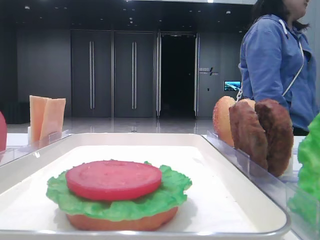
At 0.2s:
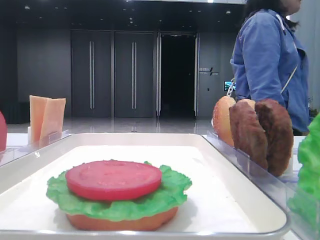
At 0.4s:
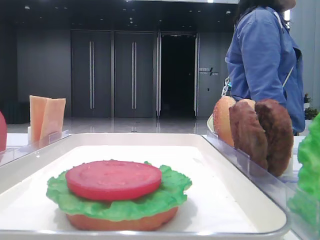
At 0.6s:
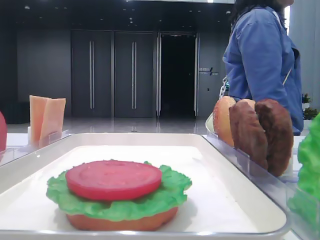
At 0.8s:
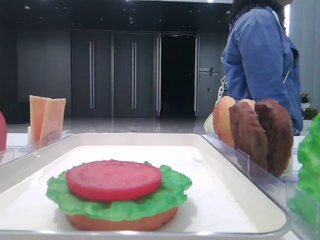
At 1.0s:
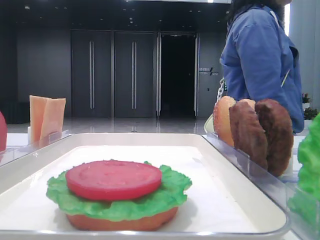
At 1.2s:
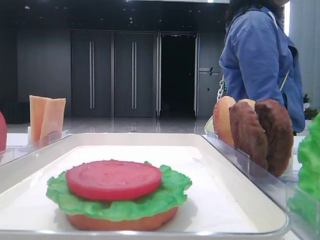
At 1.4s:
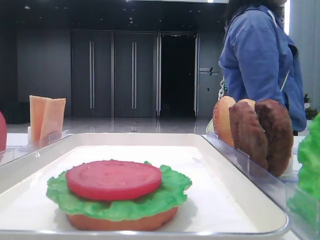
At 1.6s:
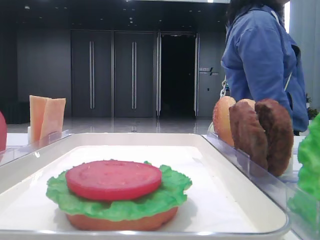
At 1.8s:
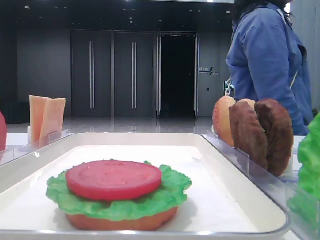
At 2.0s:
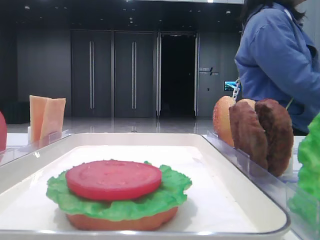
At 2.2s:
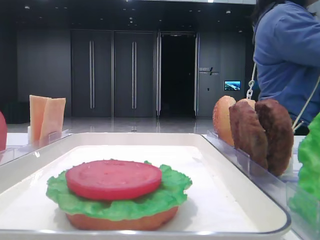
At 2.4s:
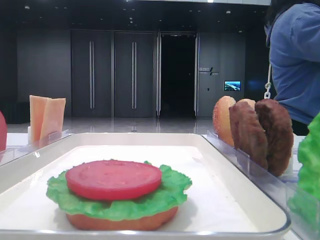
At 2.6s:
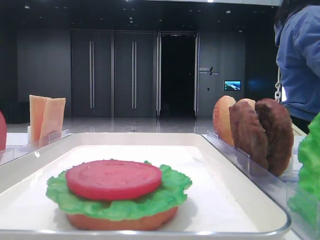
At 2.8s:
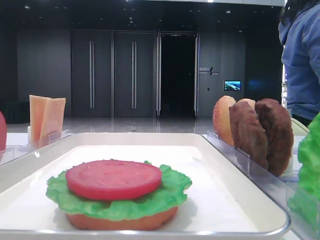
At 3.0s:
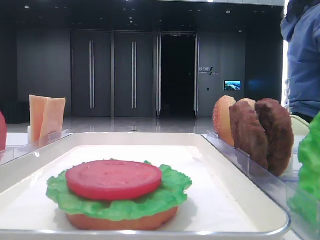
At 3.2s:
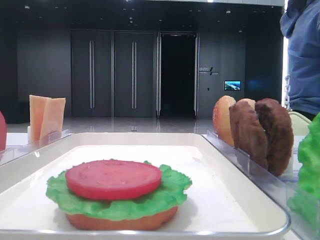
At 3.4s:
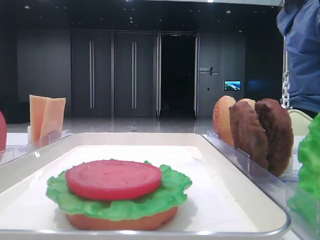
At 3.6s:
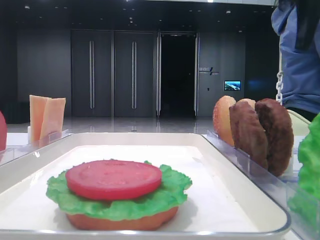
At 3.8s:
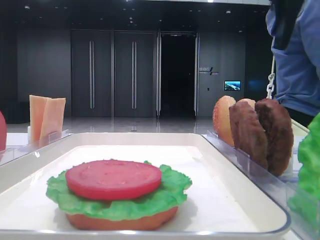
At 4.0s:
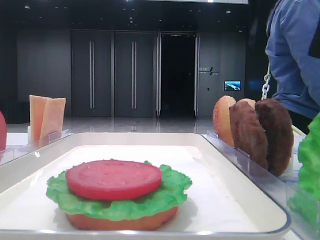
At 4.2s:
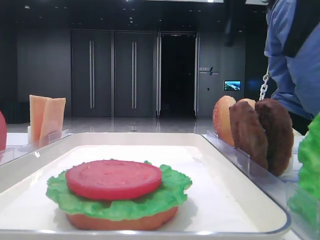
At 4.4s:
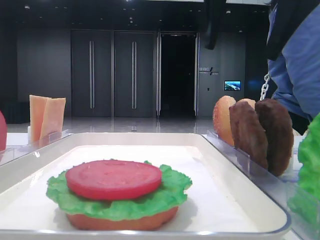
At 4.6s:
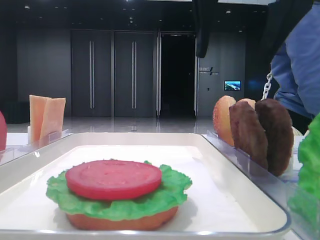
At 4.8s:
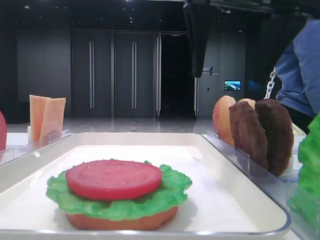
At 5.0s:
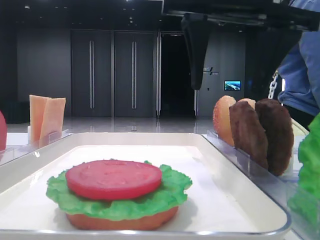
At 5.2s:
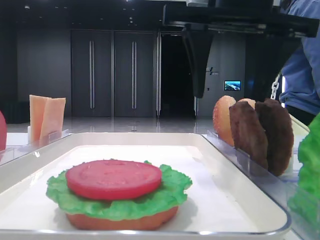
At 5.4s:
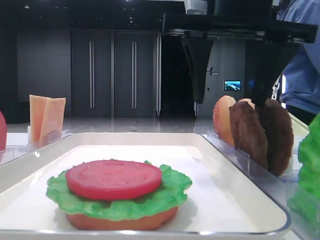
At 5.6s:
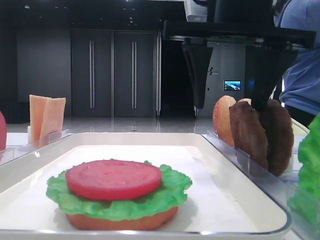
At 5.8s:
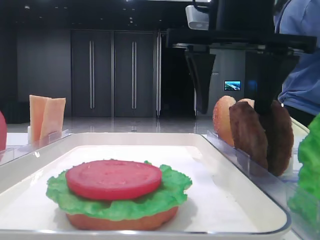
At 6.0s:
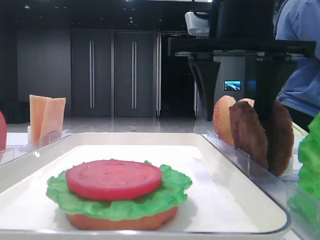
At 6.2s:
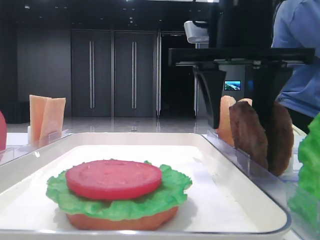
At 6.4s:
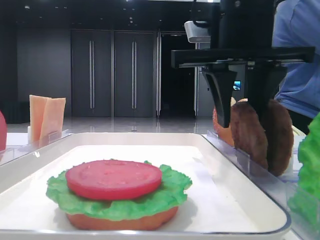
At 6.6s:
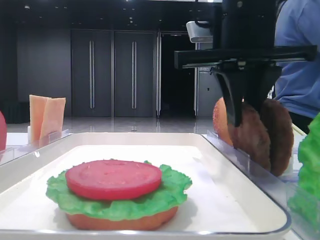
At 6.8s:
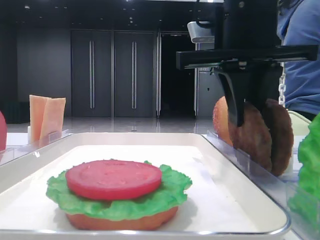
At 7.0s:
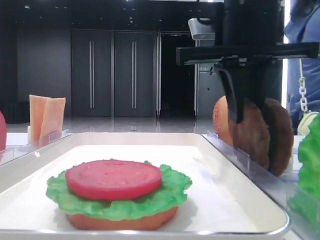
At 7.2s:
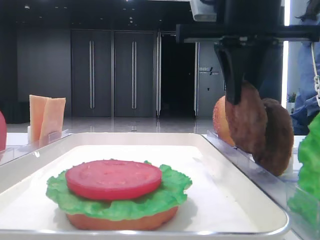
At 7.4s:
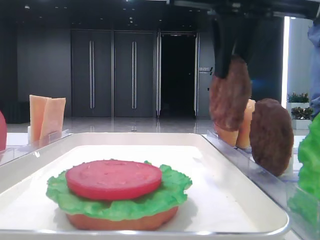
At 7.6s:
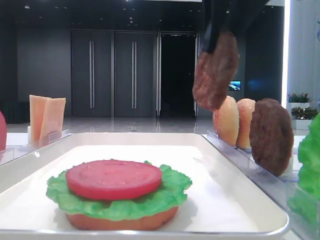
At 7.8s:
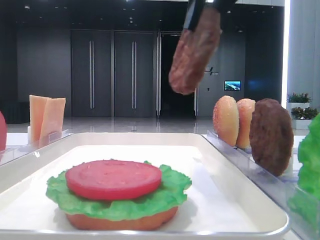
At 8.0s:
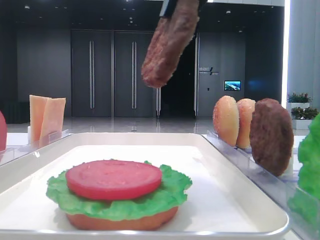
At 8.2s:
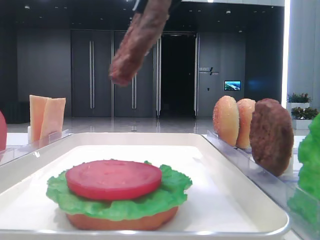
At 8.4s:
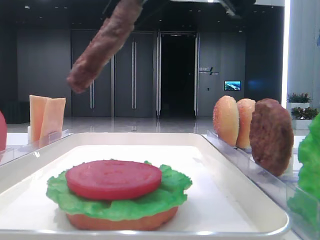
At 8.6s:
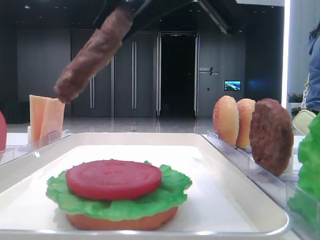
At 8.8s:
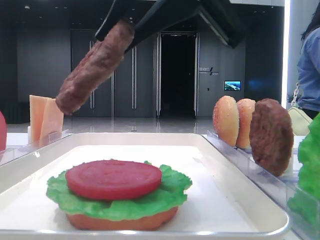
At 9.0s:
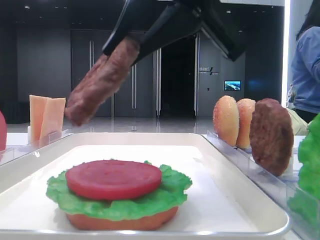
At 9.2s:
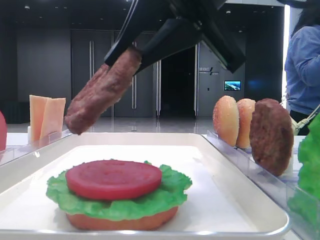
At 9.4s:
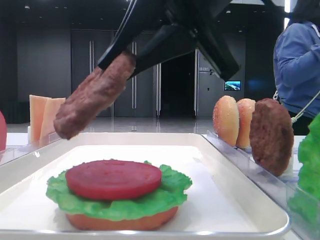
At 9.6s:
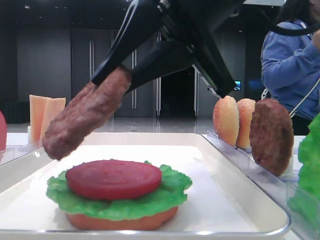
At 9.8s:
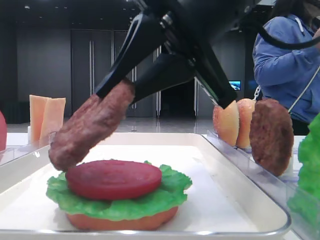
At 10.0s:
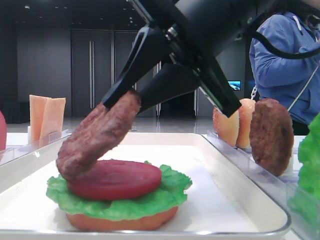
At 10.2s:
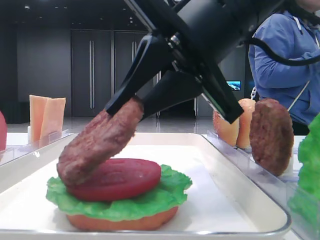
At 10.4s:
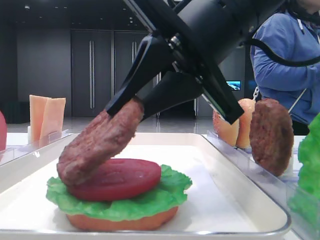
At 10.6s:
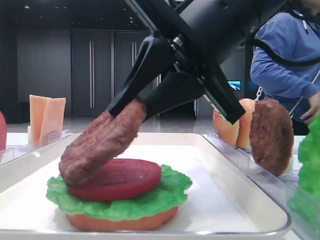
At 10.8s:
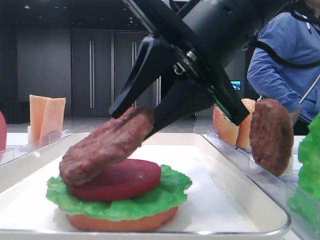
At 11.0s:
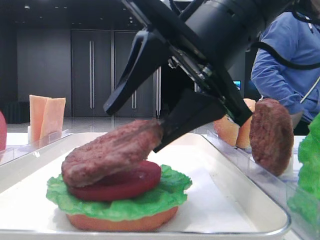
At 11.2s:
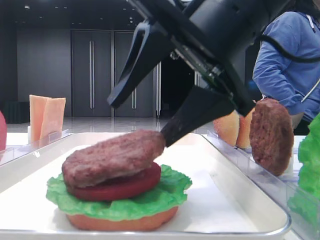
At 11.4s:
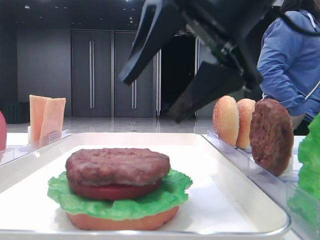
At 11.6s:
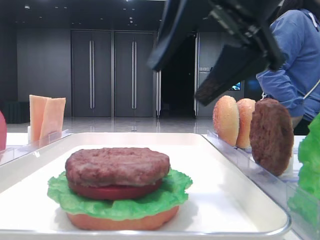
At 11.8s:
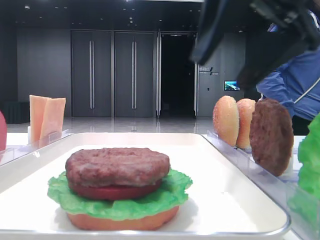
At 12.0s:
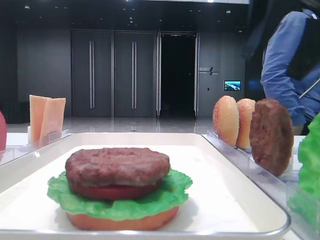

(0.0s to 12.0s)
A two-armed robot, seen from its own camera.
Step, 0.0s - 6.8s: Grab the patty with the right hand.
Step, 7.0s - 11.2s: Place the patty on the tomato slice with the right hand.
1.6s - 3.0s: The right gripper goes approximately 20 cm forward.
3.0s - 4.4s: The right gripper shifts roughly 15 cm to the left.
4.4s - 6.0s: The right gripper is displaced downward by roughly 5 cm.
6.0s - 7.6s: The right gripper heads upward, covering approximately 5 cm, and closes up.
7.6s - 9.0s: The right gripper moves some 5 cm.
9.0s - 10.4s: The right gripper moves downward, some 5 cm.
10.4s - 12.0s: The right gripper is displaced to the right and upward by roughly 15 cm, and opens its fingers.

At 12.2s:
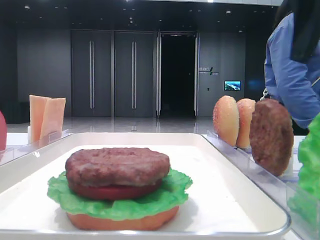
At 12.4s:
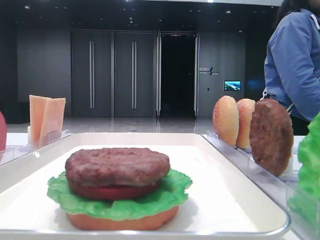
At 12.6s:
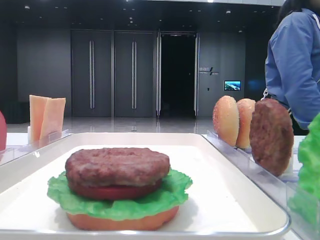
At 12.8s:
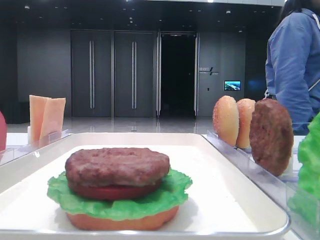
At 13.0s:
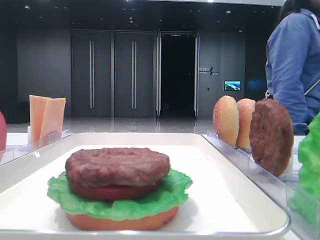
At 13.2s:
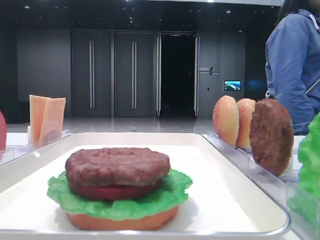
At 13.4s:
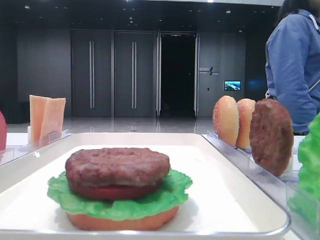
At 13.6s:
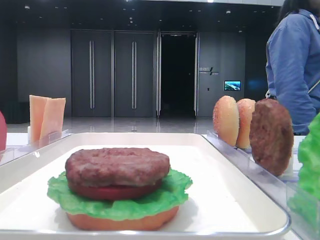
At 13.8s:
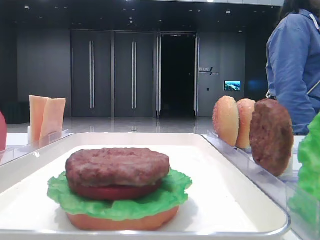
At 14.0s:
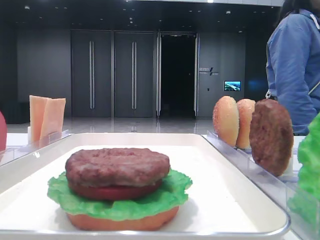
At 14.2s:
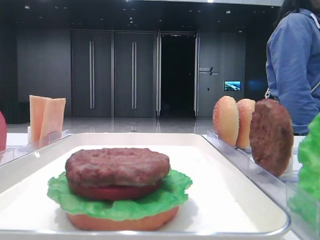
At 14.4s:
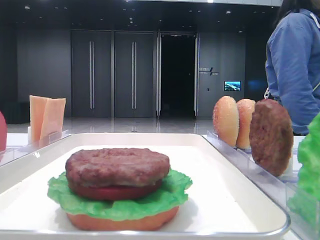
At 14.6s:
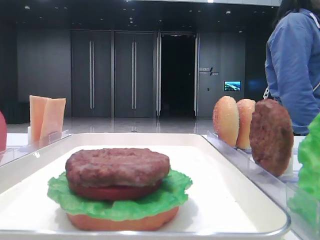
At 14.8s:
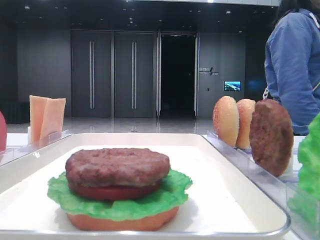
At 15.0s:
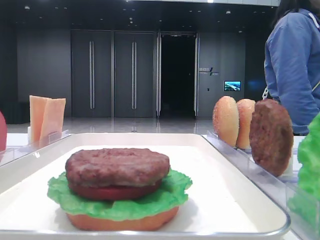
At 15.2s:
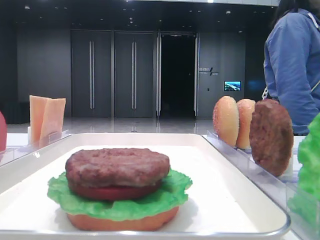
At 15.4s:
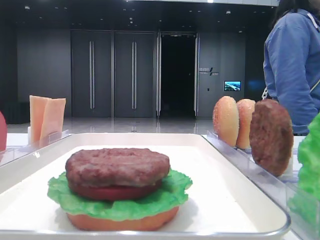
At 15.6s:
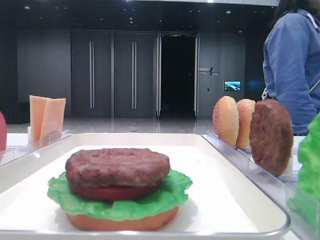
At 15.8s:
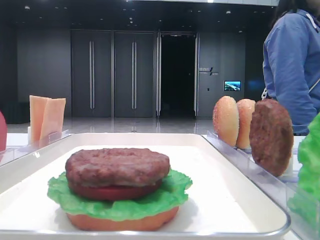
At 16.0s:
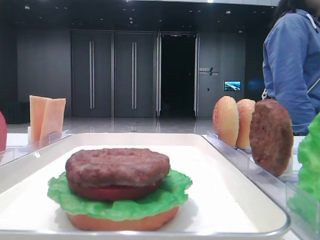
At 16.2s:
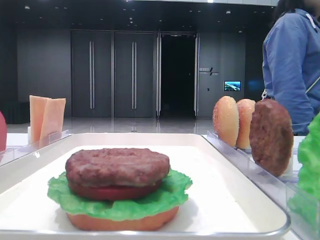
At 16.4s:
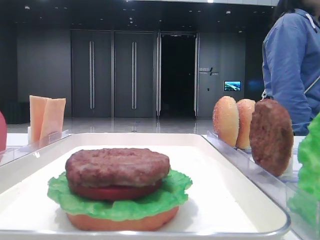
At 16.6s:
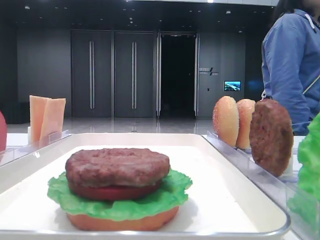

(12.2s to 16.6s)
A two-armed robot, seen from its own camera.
12.2s - 13.6s: The right gripper is displaced to the right and backward by roughly 10 cm.
13.6s - 15.2s: The right gripper is displaced backward by about 20 cm.
15.2s - 16.6s: Both grippers stay about where they are.

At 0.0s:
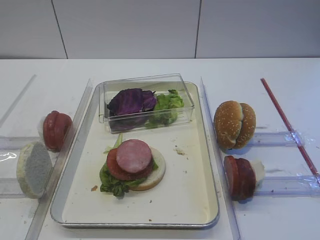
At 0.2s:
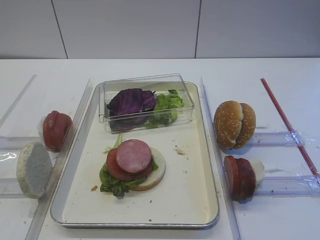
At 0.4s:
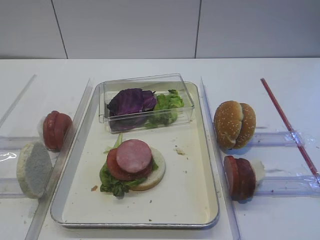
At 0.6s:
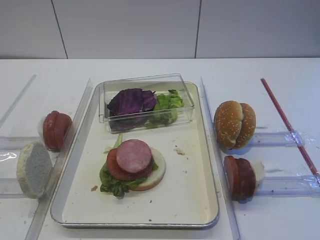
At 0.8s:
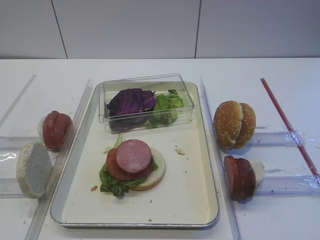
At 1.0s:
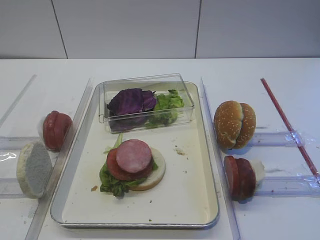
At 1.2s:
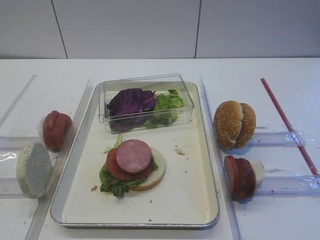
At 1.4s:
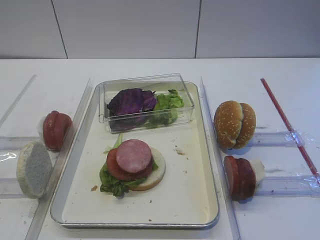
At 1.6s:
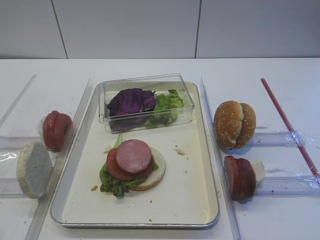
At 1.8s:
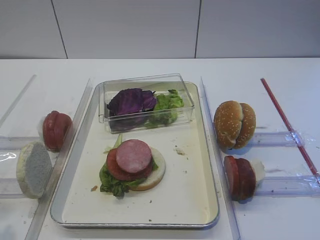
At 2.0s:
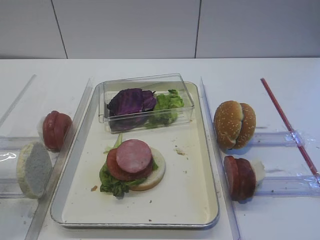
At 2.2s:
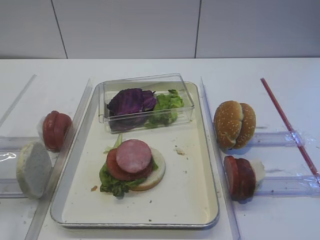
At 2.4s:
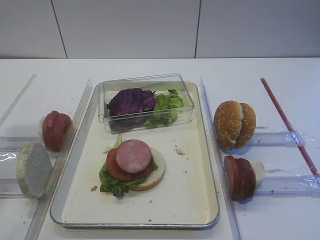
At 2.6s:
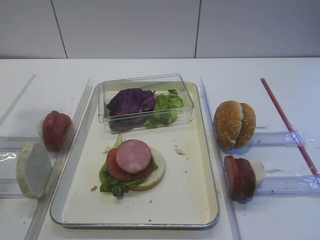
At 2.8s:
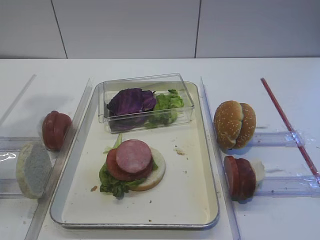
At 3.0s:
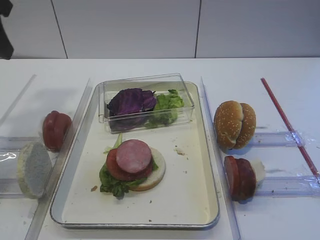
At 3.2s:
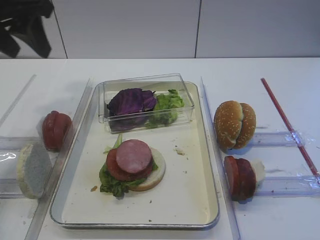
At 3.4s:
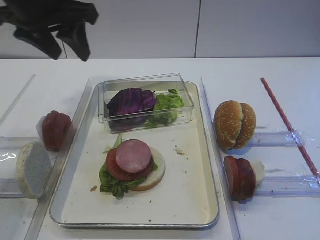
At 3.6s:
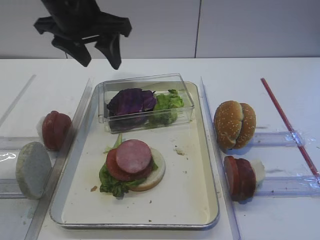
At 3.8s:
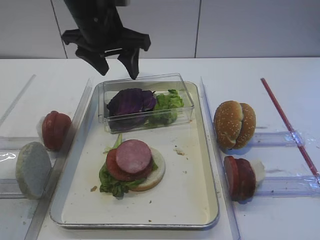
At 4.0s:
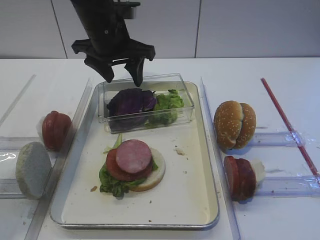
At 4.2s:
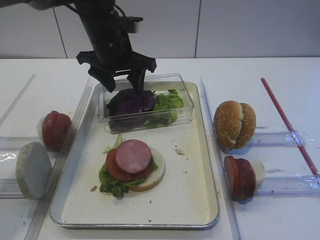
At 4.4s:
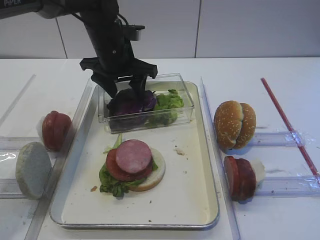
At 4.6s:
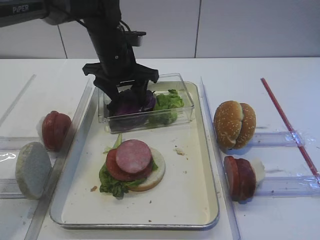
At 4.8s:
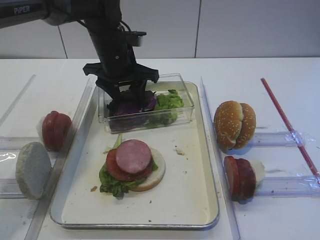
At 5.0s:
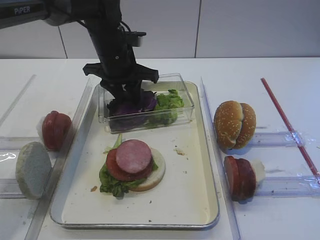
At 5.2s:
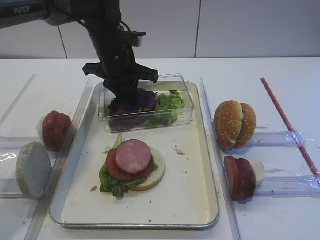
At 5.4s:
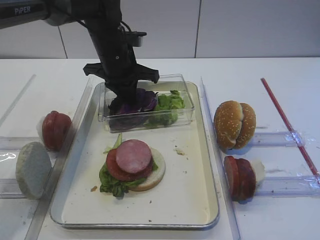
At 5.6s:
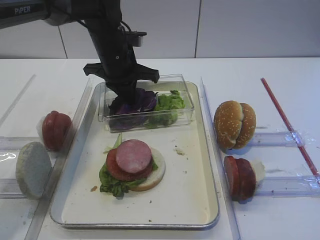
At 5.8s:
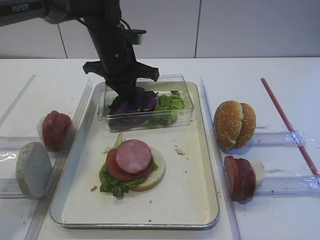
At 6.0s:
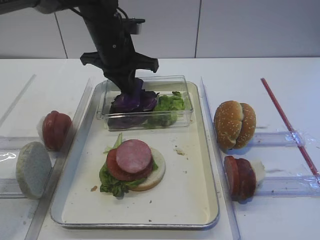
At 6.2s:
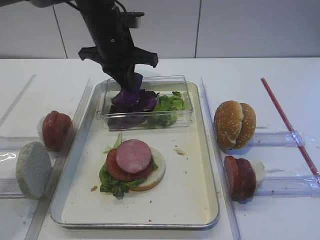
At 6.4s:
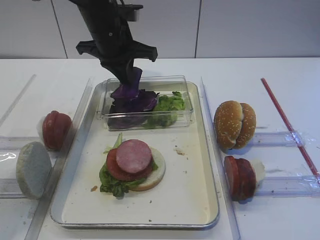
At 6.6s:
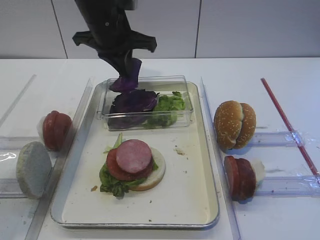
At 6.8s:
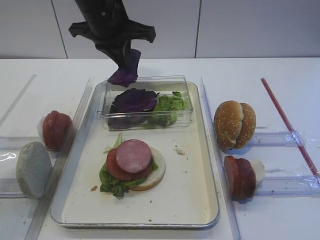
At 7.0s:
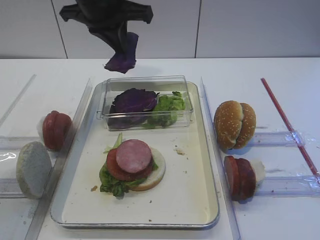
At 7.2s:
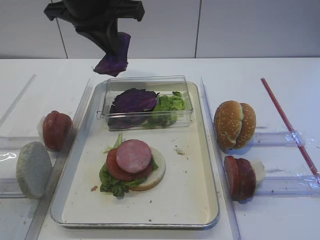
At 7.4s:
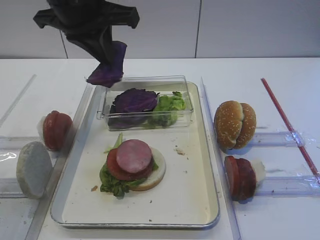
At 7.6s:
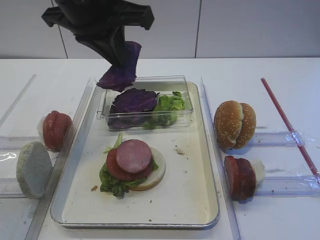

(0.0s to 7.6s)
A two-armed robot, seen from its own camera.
Step, 0.0s - 6.6s: Pick up the purple cabbage with the left gripper.
1.6s - 3.0s: The left gripper travels forward by some 25 cm.
3.0s - 4.6s: The left gripper is displaced to the right, forward and downward by roughly 30 cm.
4.6s - 6.0s: The left gripper closes its fingers.
6.0s - 7.6s: The left gripper is displaced upward and backward by some 15 cm.
